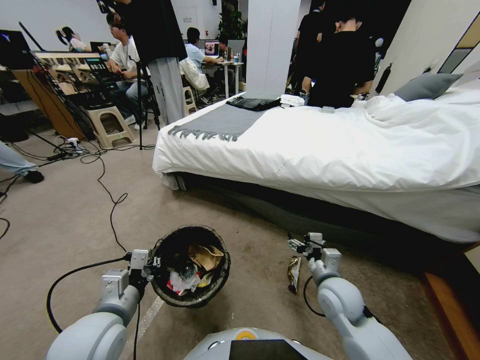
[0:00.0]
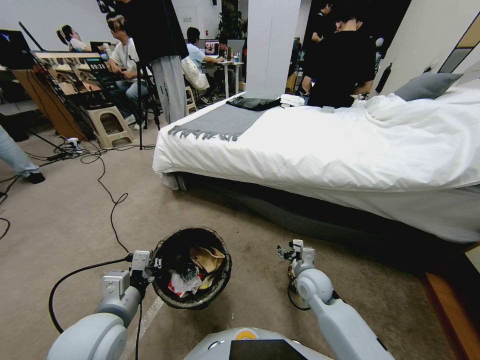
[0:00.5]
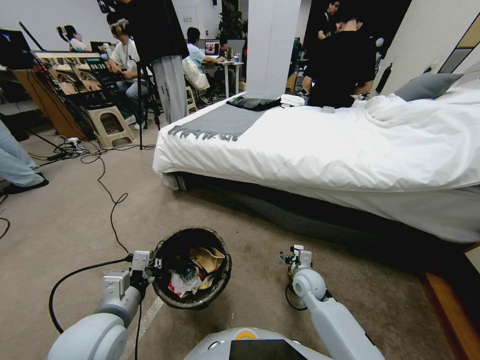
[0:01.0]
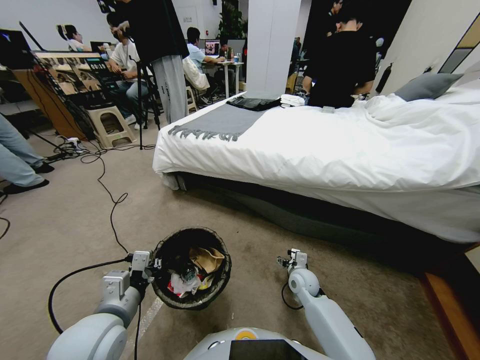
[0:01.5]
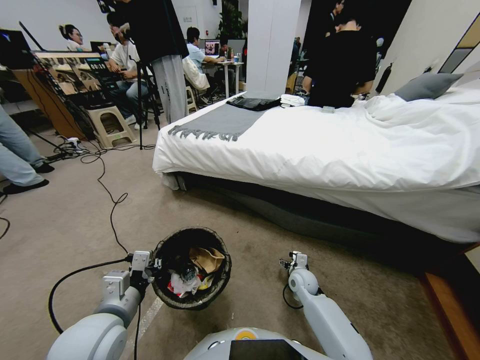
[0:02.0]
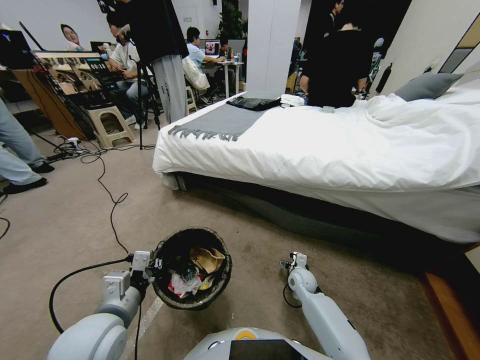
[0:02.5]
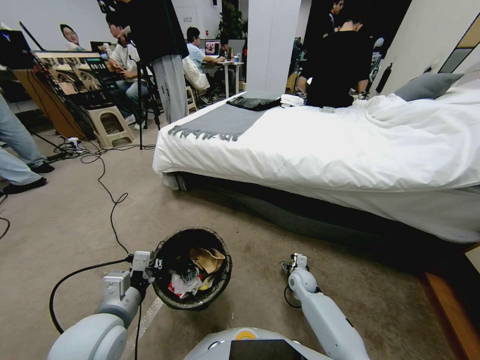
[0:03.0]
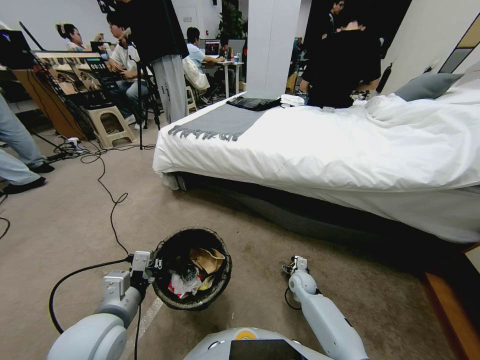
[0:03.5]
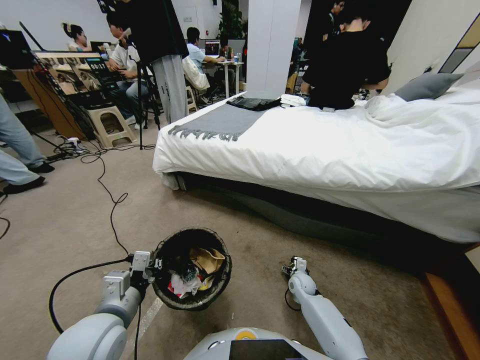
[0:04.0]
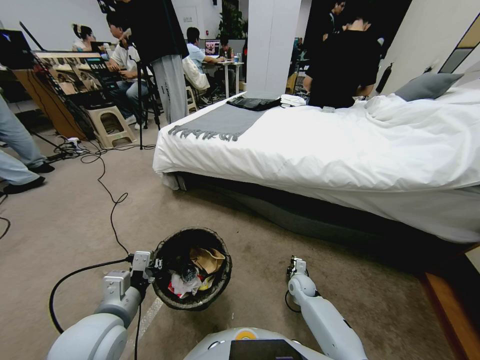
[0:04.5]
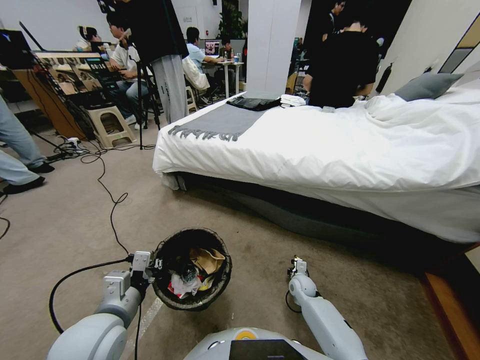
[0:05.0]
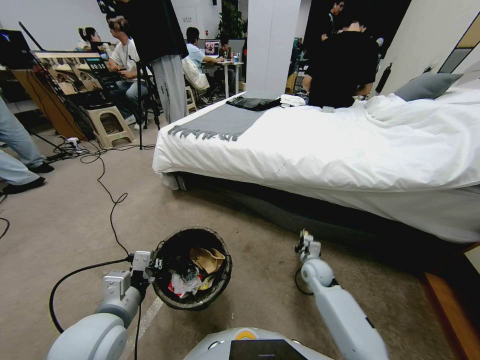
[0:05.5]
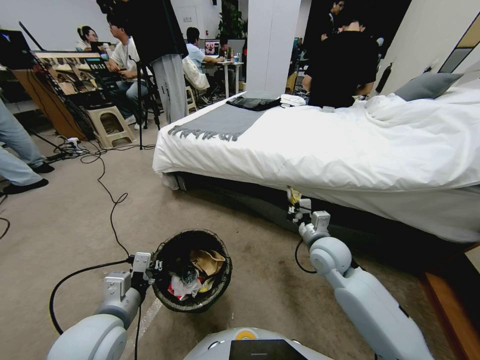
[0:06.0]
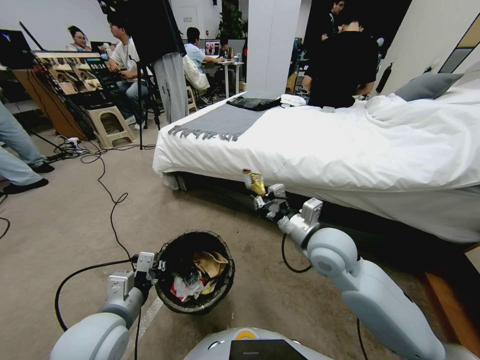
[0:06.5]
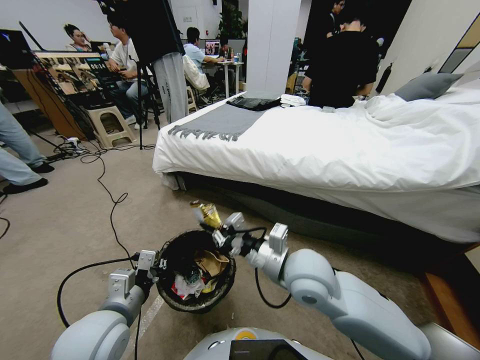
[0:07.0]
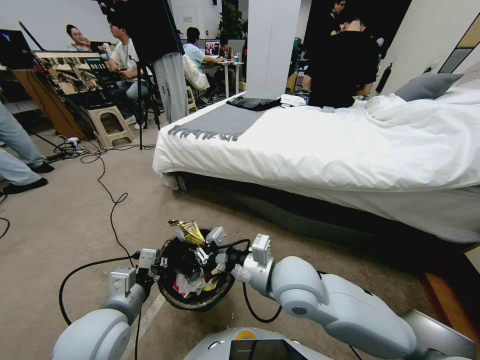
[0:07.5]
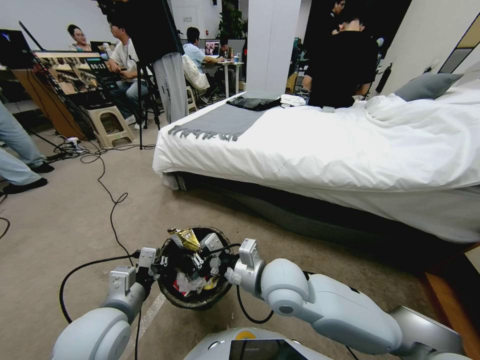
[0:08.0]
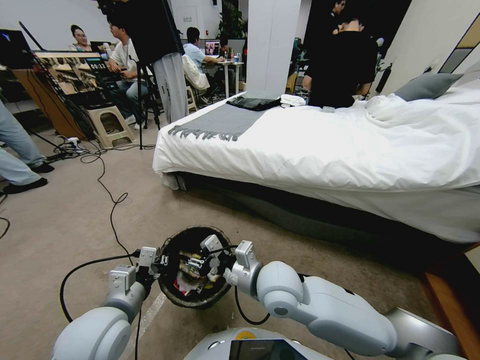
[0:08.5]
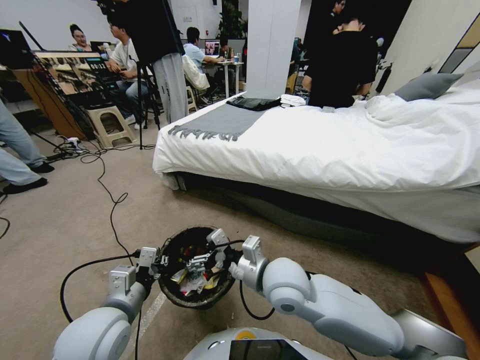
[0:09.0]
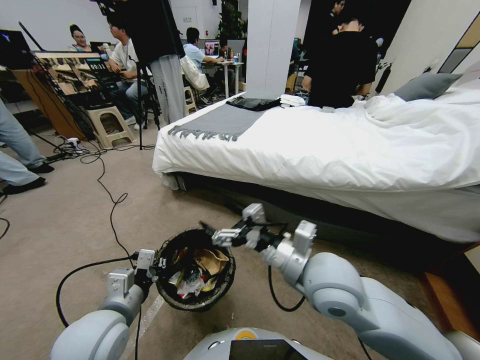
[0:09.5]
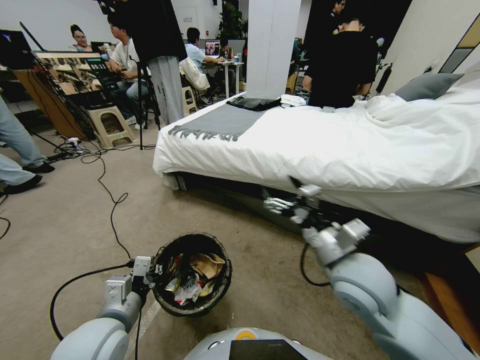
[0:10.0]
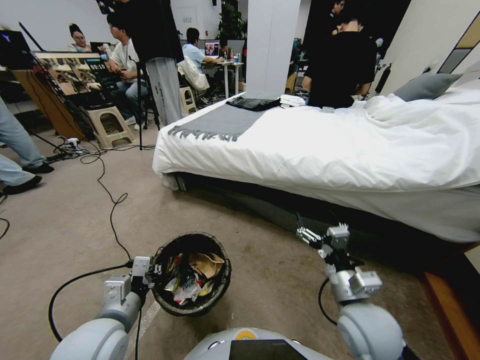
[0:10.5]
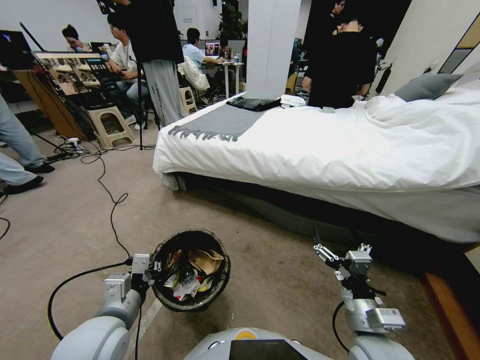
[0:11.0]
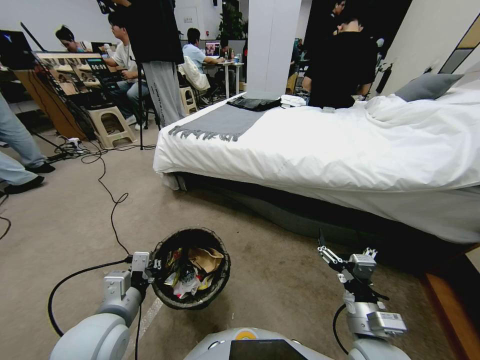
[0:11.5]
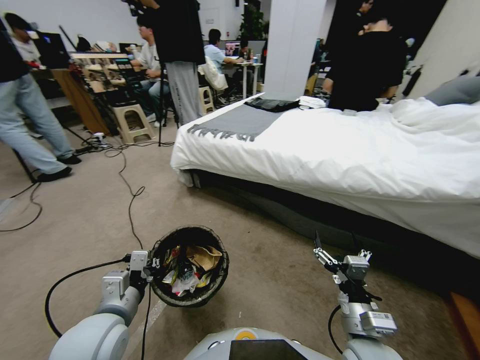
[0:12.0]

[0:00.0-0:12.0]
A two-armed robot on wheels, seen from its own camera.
Task of the whole recording: Pick up the trash bin, then pick up the garbage from the floor and place it into the trash bin.
0:00.0 to 0:02.0: The right gripper goes roughly 20 cm downward and forward.
0:02.0 to 0:04.0: The right gripper heads downward, covering roughly 5 cm.
0:04.0 to 0:06.0: The right gripper shifts approximately 30 cm upward, and closes.
0:06.0 to 0:08.0: The right gripper shifts approximately 15 cm to the left and backward.
0:08.0 to 0:10.0: The right gripper shifts about 15 cm to the right, and opens.
0:10.0 to 0:12.0: The right gripper is displaced downward and backward by about 15 cm.

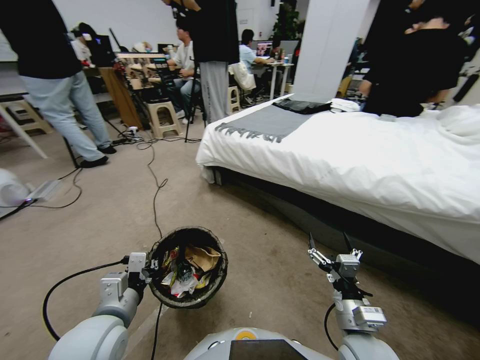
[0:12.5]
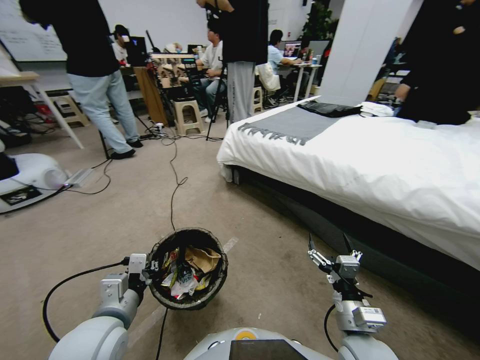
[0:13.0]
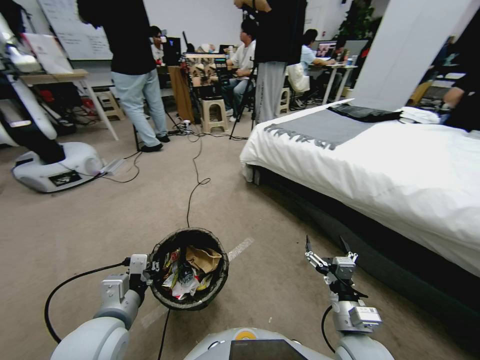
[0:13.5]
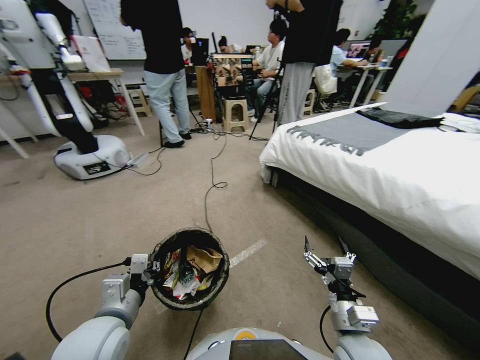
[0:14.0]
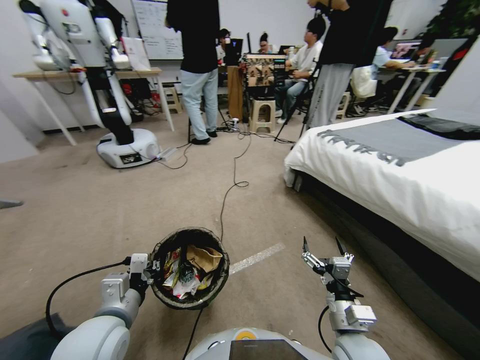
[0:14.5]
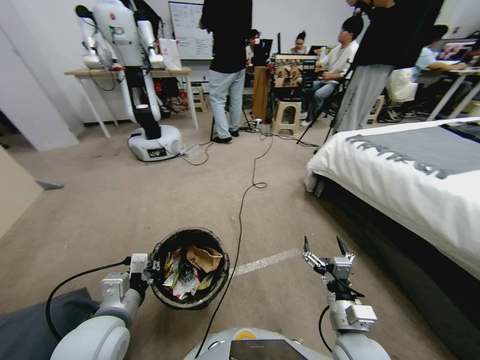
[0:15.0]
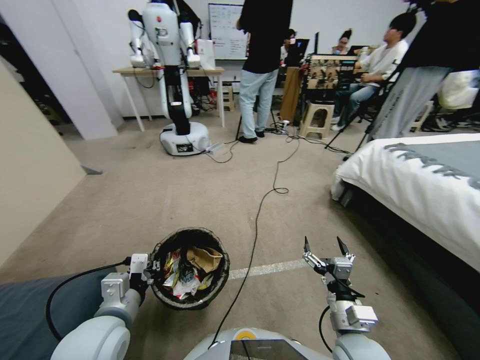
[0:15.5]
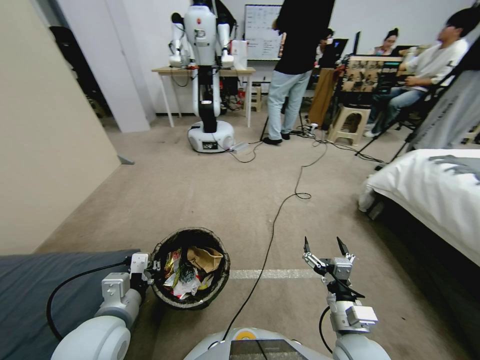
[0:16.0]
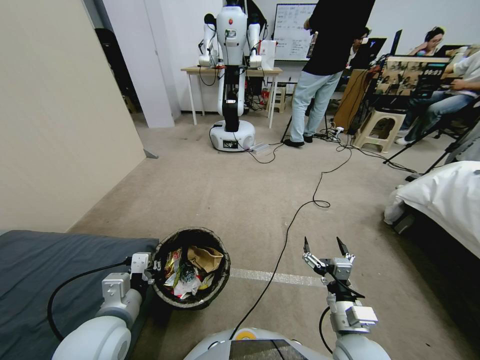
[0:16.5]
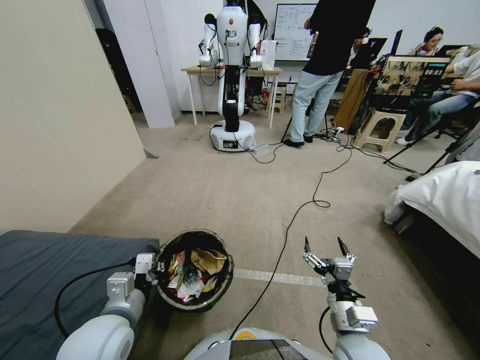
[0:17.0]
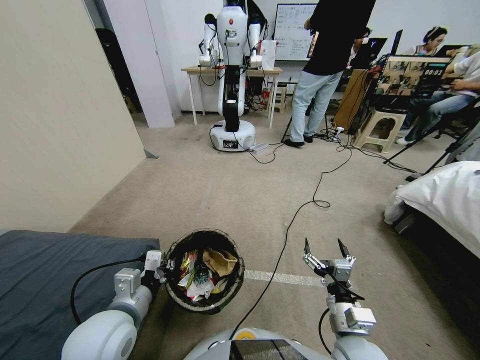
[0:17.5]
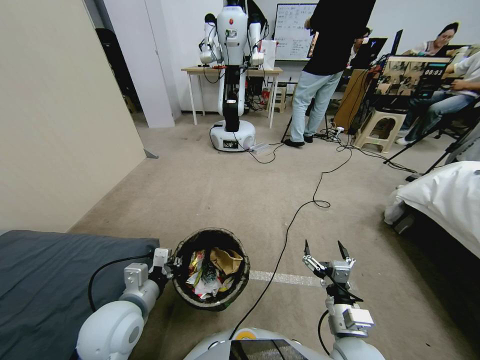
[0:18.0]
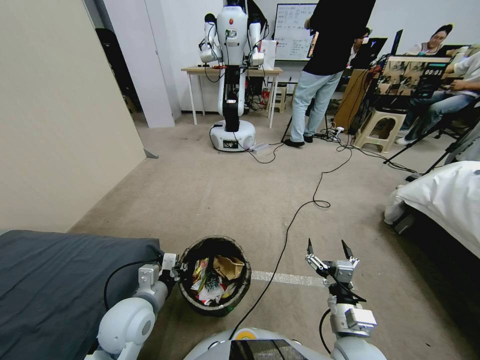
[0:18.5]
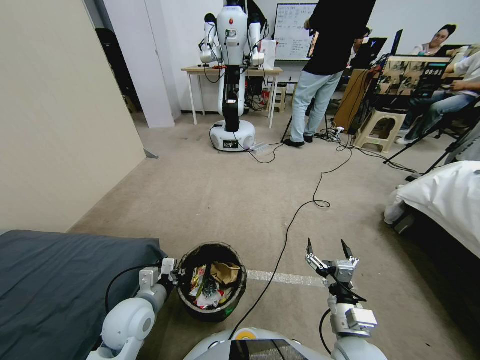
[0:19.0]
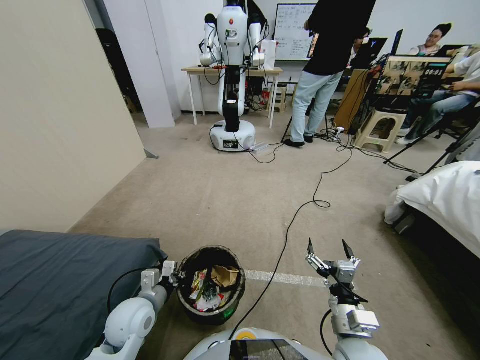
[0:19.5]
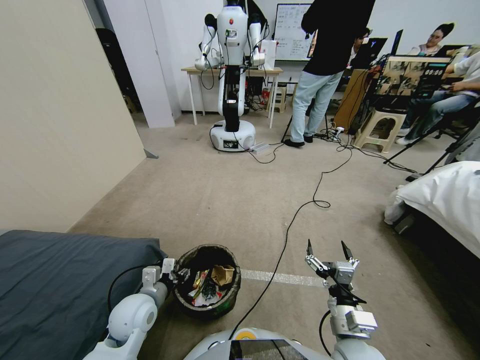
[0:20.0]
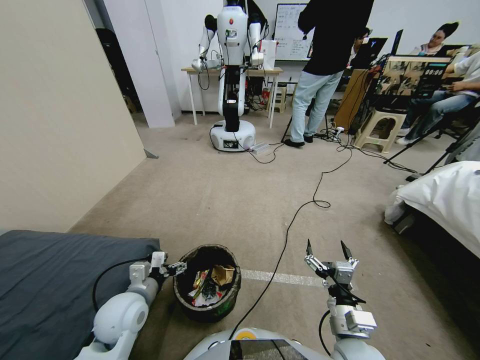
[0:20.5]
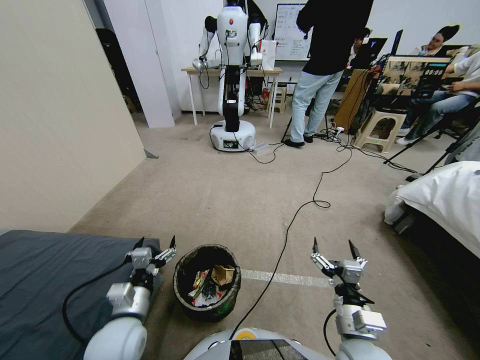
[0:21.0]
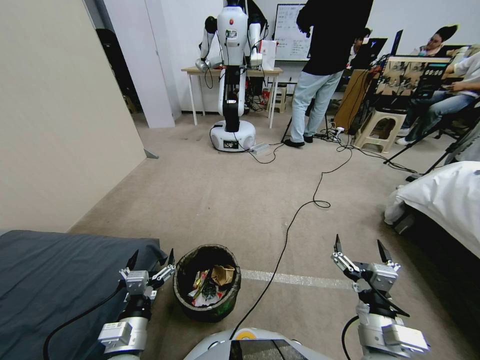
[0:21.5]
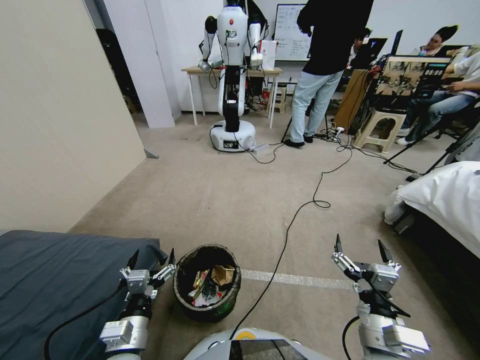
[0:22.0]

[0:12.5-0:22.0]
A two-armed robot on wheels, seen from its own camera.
Task of the whole recording: Pick up the trash bin, then pick up the garbage from the floor and place it into the trash bin.
0:16.5 to 0:18.0: The grippers move only a little.
0:18.0 to 0:20.0: The left gripper shifts approximately 10 cm downward, and opens.
0:20.0 to 0:22.0: The right gripper shifts by about 5 cm. The left gripper heads backward, covering approximately 10 cm, and opens.
